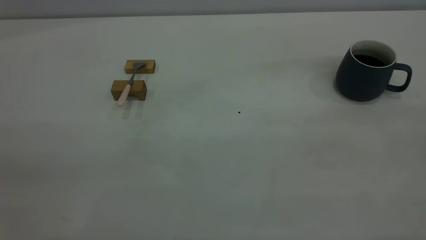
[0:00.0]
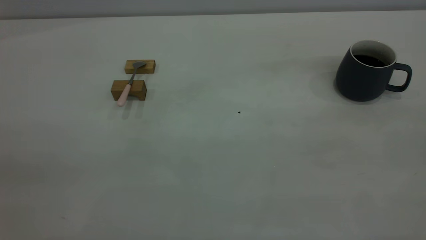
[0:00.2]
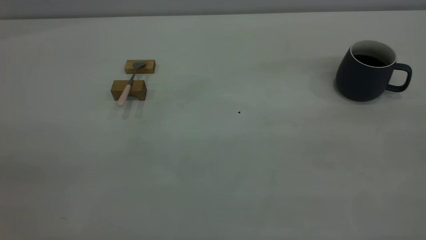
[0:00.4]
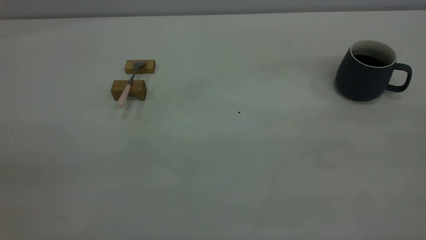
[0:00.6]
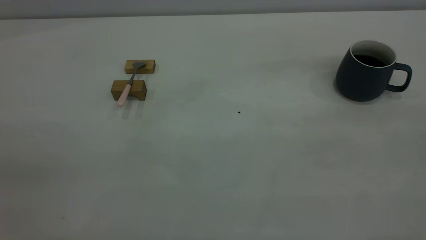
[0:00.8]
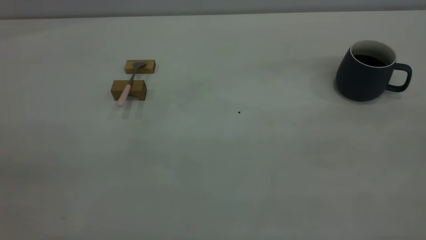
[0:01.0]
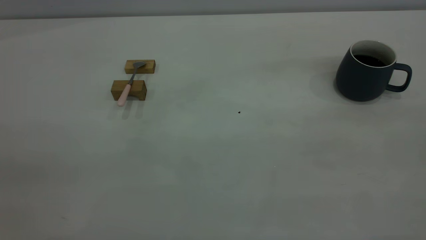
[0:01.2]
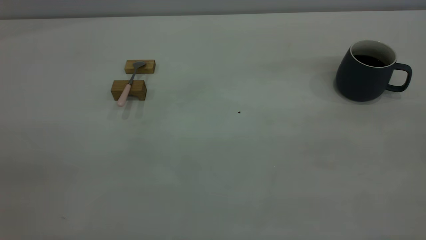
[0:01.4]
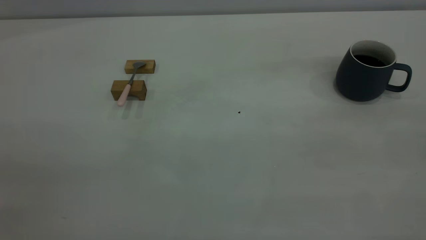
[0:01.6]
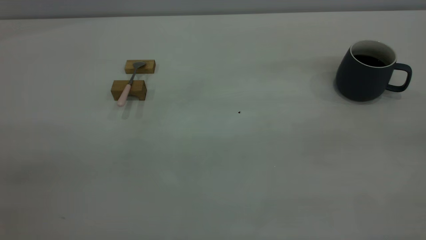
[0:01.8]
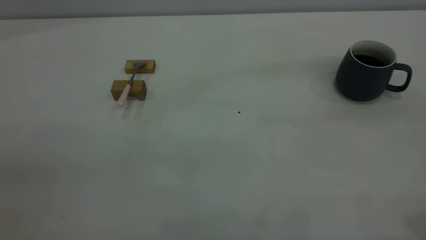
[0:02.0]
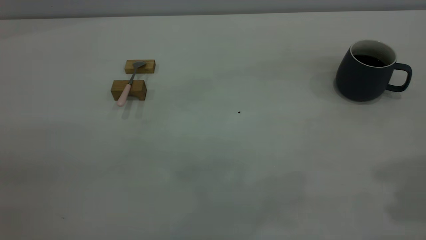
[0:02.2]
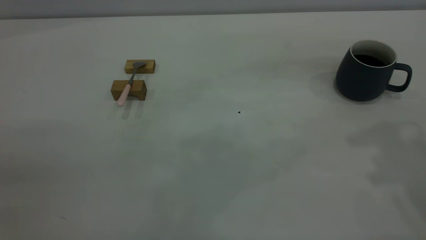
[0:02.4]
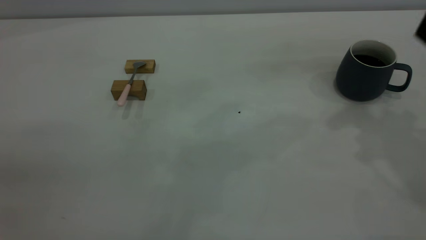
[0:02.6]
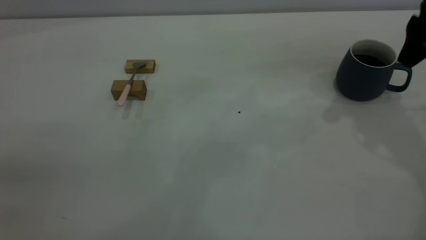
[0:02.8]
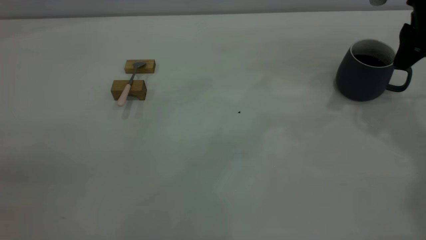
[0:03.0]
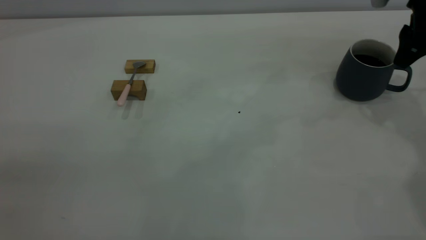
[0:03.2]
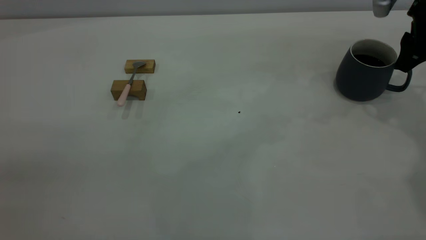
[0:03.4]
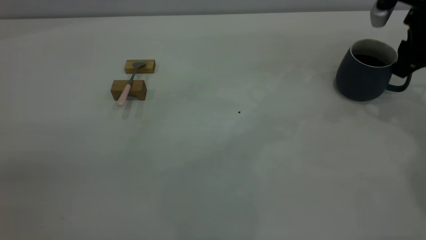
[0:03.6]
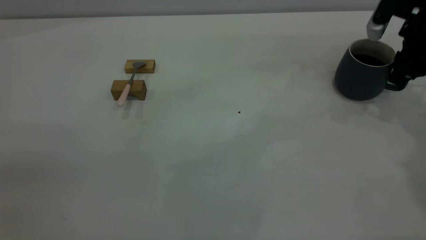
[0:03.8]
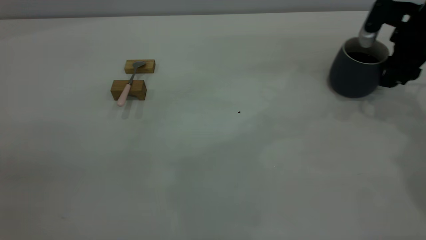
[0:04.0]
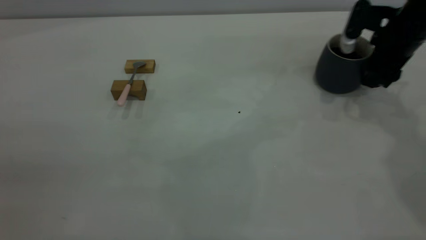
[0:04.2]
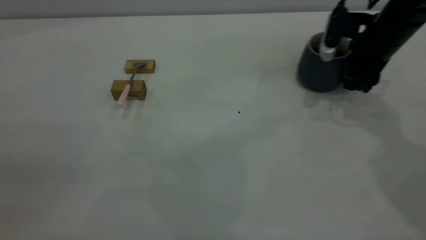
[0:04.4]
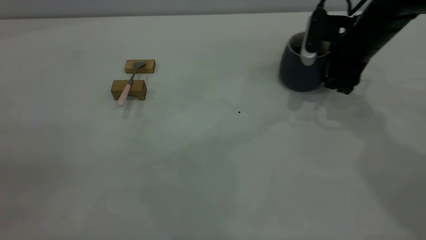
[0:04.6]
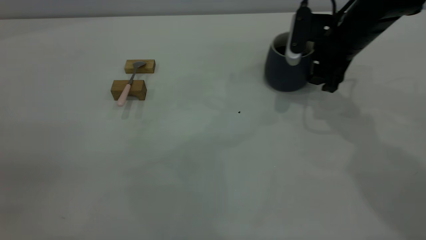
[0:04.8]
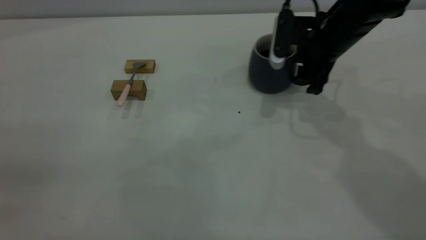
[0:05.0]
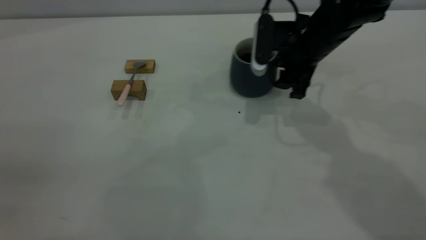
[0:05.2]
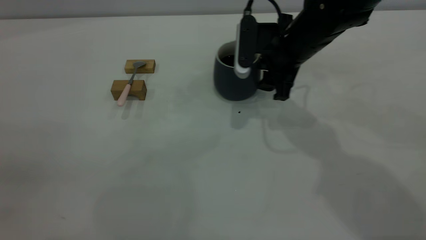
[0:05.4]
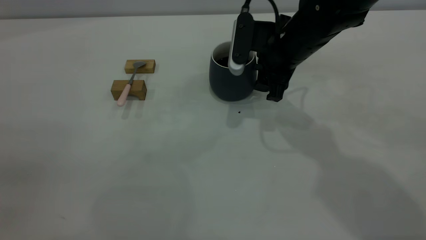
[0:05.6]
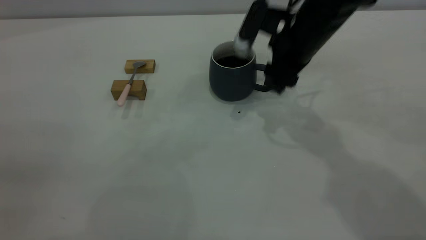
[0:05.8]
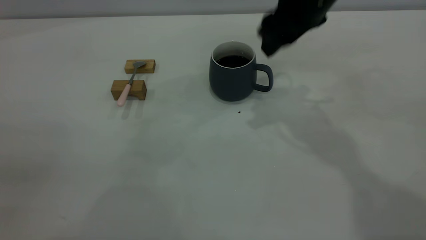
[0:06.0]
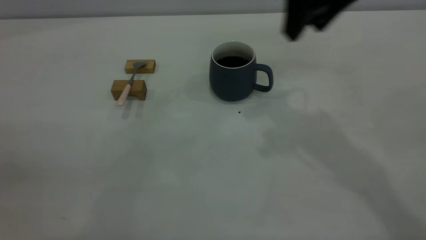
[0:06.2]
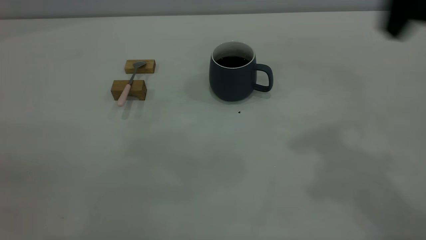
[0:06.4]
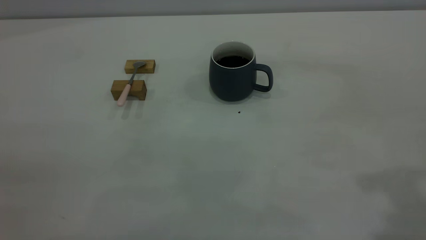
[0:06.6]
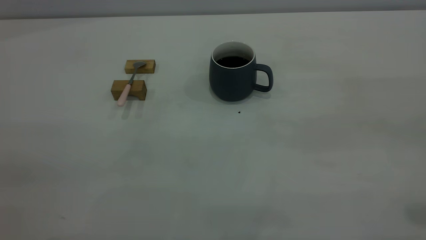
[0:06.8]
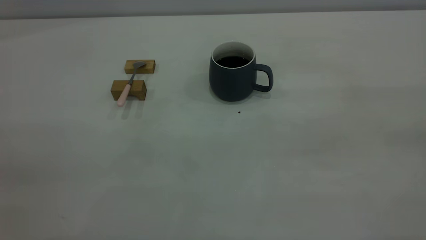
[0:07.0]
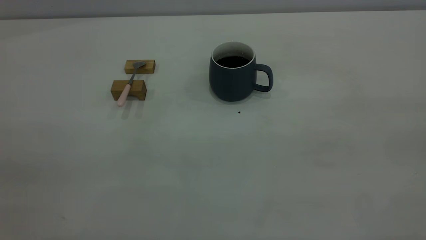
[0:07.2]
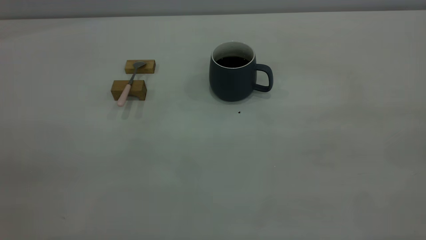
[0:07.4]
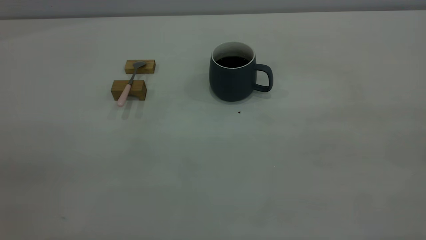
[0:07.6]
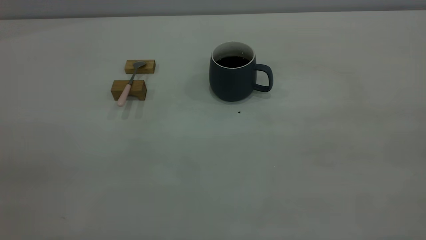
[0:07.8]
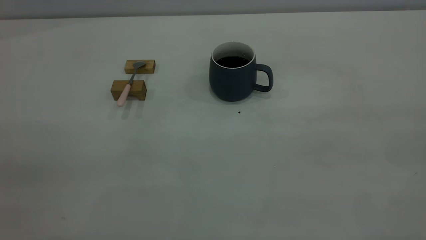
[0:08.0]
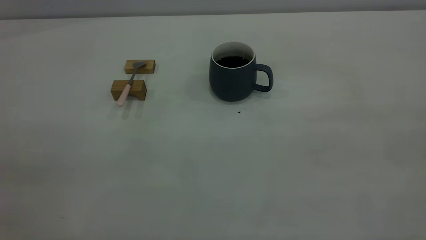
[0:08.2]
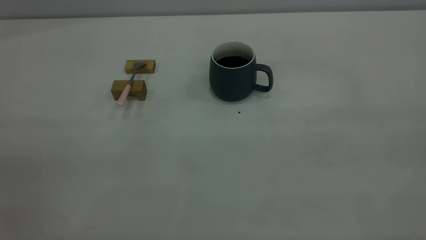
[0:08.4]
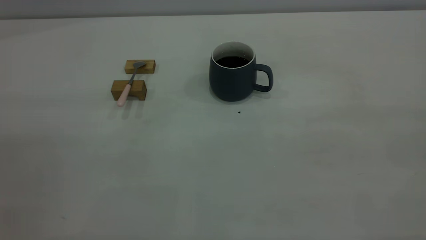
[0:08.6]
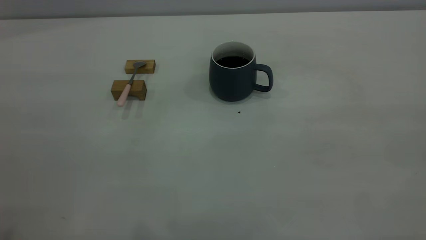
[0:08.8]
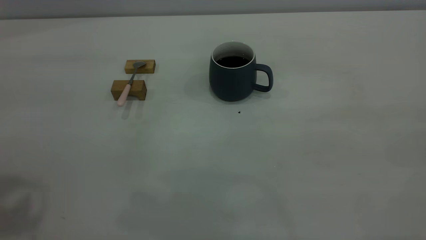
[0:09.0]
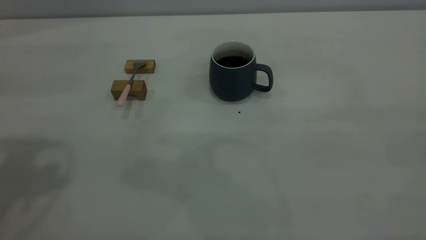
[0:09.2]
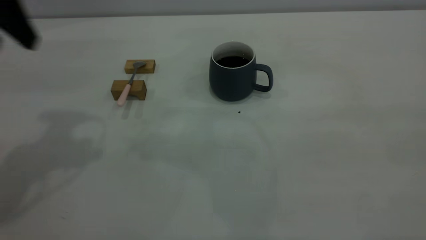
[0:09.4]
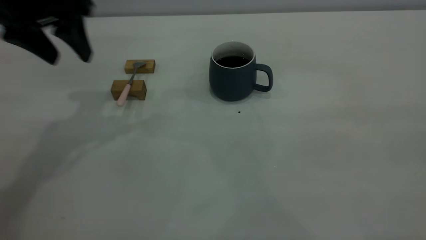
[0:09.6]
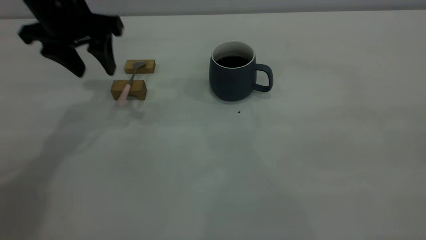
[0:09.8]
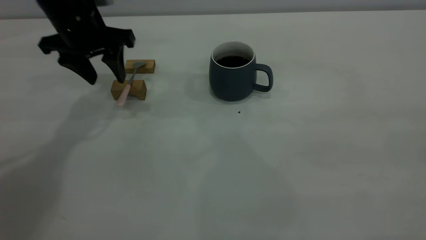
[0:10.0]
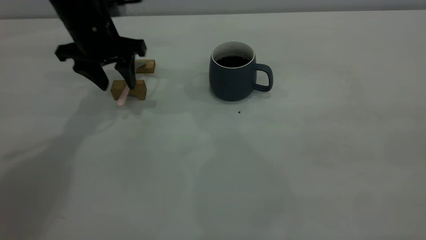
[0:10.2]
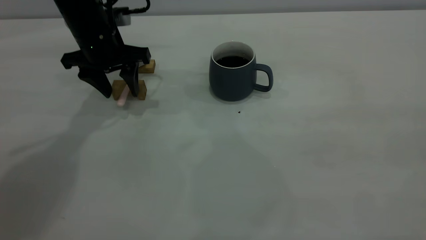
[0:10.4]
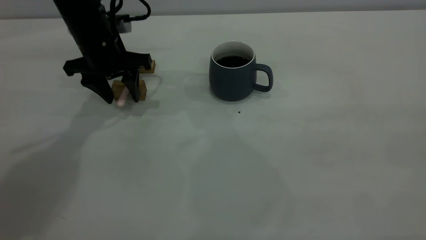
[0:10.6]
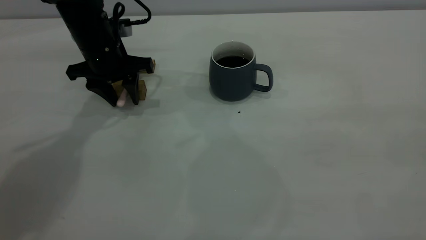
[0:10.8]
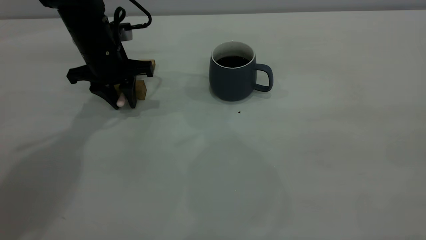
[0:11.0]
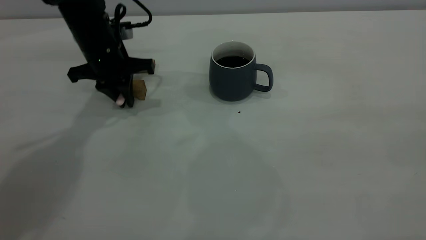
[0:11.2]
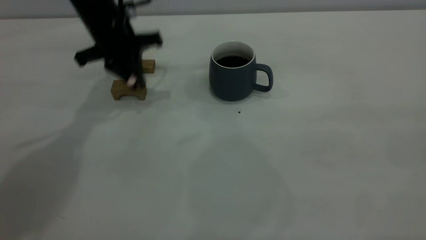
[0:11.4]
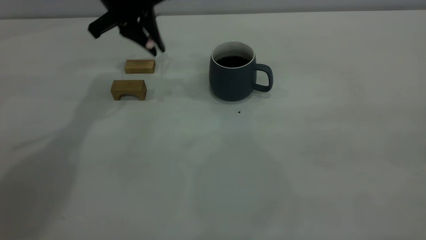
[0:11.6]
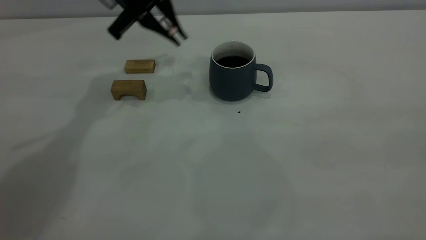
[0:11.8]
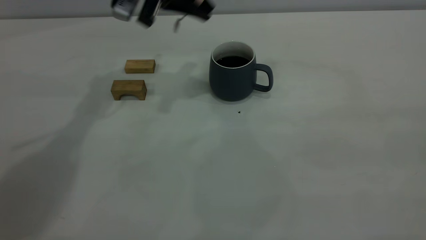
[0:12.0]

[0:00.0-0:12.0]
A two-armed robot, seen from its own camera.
Step, 0:00.0 to 0:06.0: Move the cup with coffee to the center of view.
Step, 0:06.2 to 0:11.2: Pick up the spoon.
0:00.0 to 0:01.6: Both grippers stay about where they are.
0:01.6 to 0:03.0: The right gripper travels forward and downward by roughly 40 cm.
0:03.0 to 0:04.4: The right gripper shifts some 10 cm downward and to the left.
0:04.4 to 0:06.0: The right gripper heads upward and to the left, covering about 20 cm.
0:06.0 to 0:07.6: The right gripper moves backward and to the right, about 40 cm.
0:09.0 to 0:10.4: The left gripper shifts some 35 cm downward, forward and to the right.
0:10.4 to 0:12.0: The left gripper goes approximately 10 cm upward and to the right, and closes up.

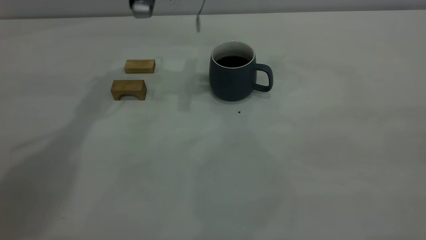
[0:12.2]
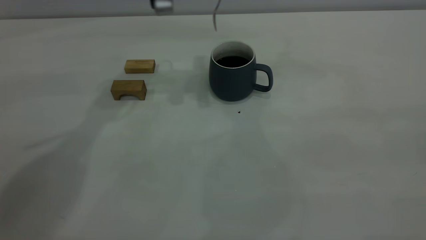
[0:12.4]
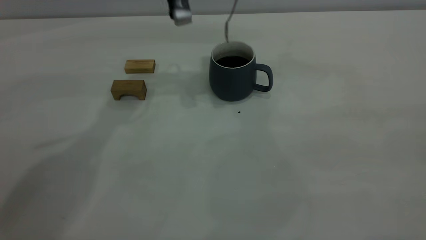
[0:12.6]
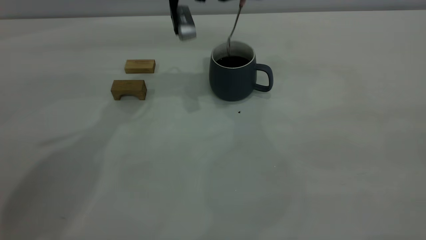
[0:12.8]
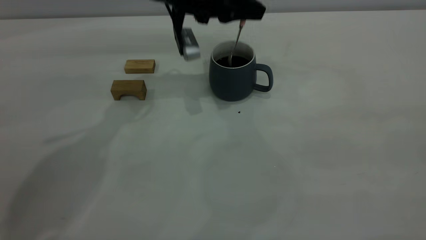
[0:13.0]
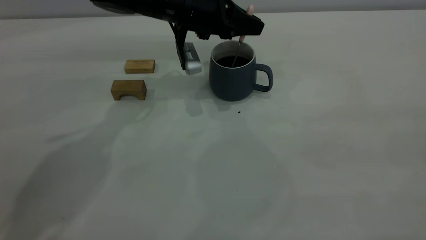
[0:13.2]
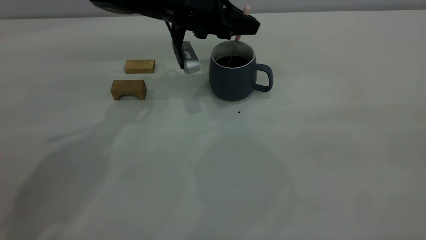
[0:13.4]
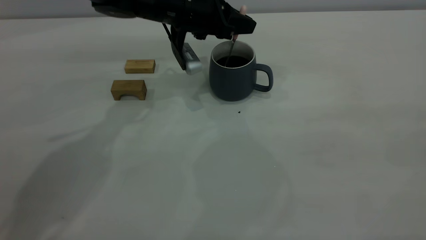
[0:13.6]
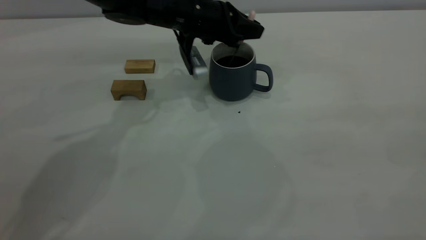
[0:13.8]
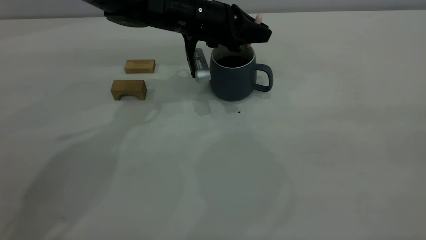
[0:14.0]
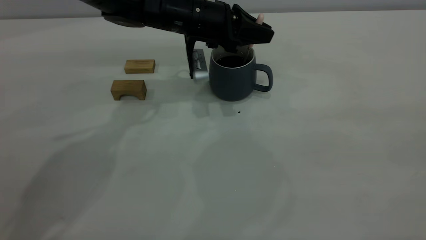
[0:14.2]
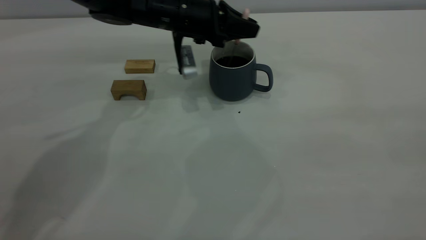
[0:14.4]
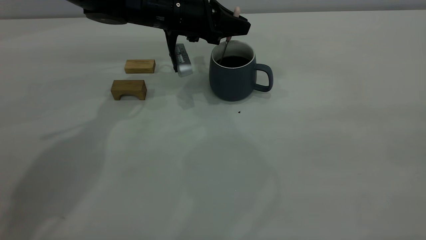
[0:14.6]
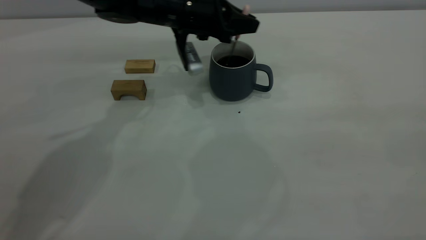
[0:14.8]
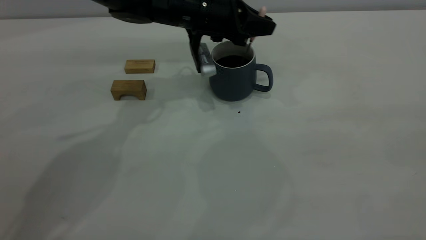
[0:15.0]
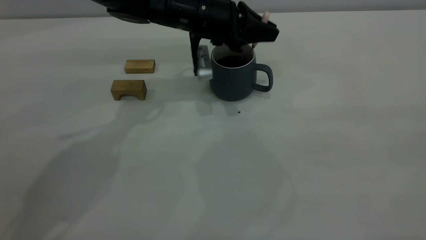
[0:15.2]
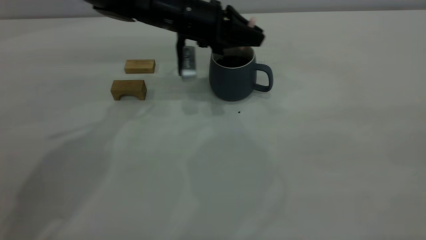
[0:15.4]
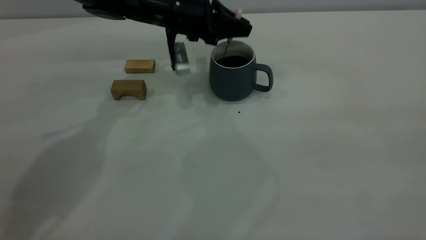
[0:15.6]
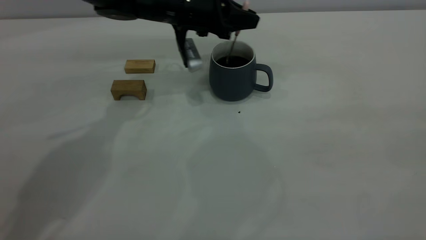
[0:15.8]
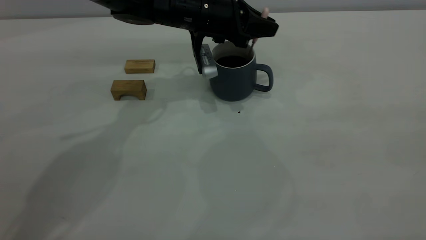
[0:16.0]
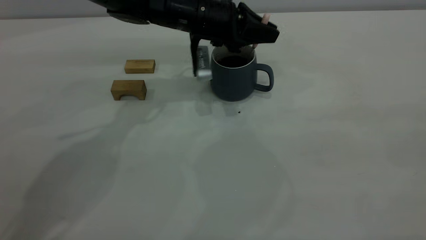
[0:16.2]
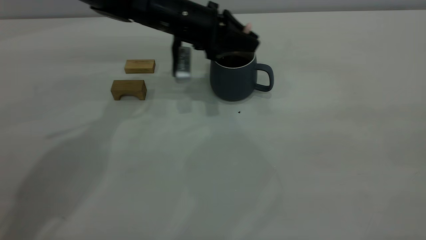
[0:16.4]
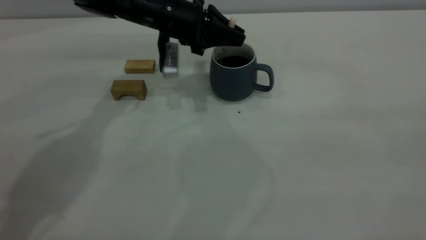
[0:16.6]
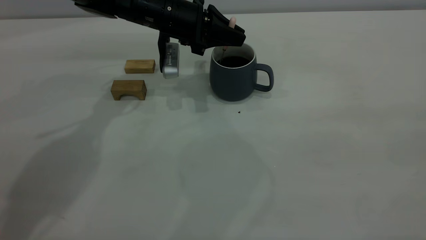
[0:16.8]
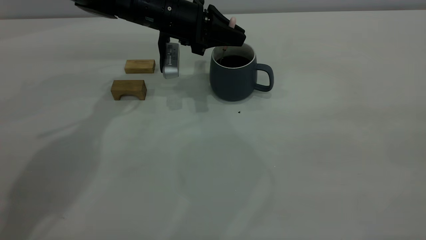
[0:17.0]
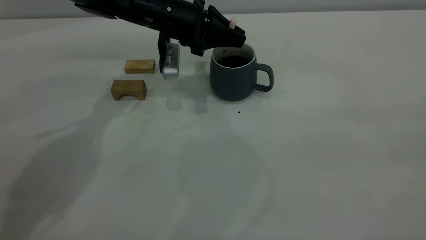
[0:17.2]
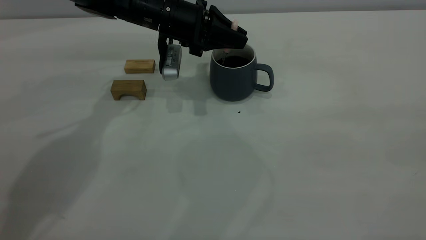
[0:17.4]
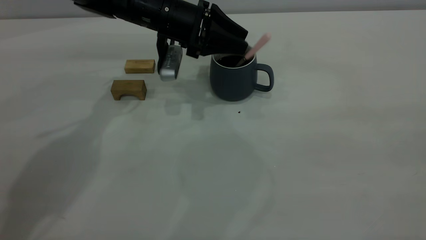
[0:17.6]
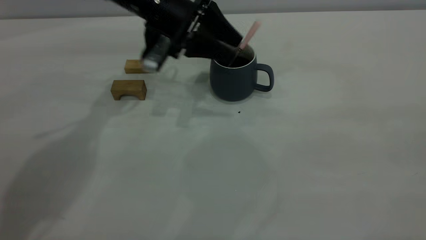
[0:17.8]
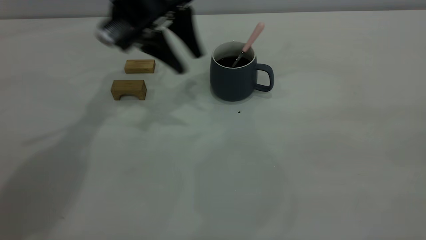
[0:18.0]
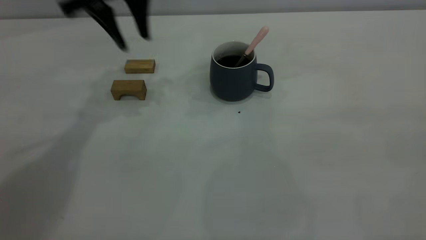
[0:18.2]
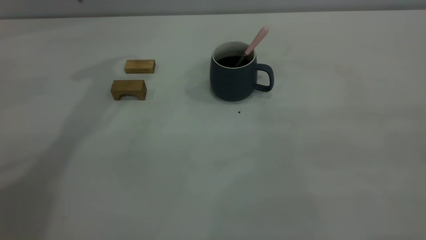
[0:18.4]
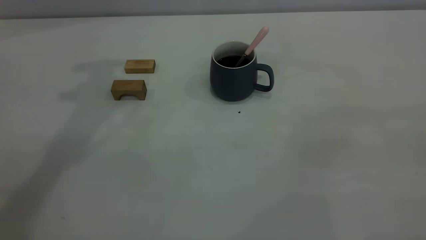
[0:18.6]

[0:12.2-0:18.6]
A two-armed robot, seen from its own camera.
Step, 0:12.2 to 0:18.0: Stir the coffee in the cup.
0:12.2 to 0:13.8: The left gripper shifts about 10 cm downward.
0:13.8 to 0:17.0: The grippers make only small movements.
0:17.0 to 0:18.6: The left gripper heads upward, covering some 30 cm, and opens up.
